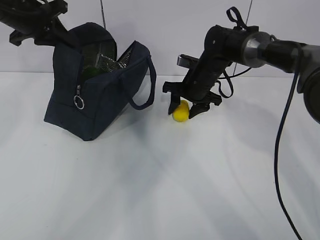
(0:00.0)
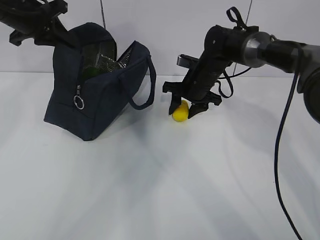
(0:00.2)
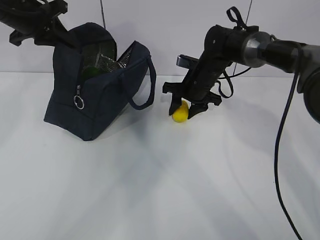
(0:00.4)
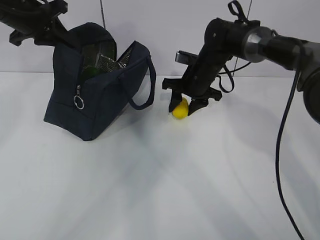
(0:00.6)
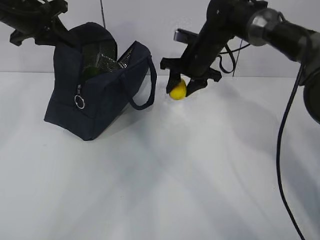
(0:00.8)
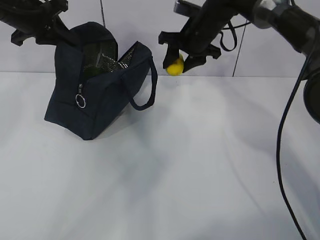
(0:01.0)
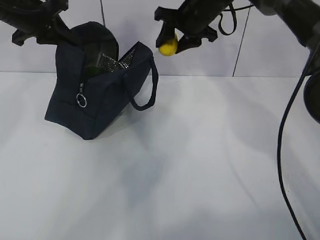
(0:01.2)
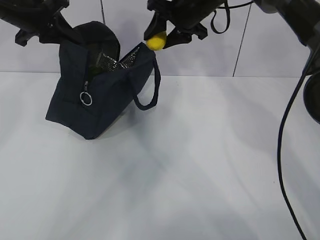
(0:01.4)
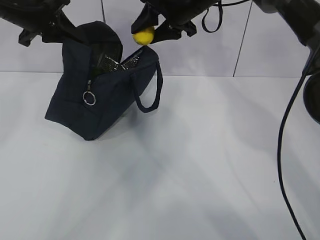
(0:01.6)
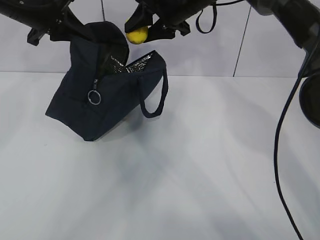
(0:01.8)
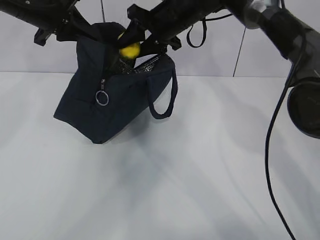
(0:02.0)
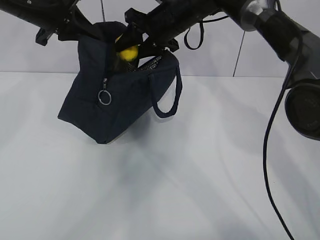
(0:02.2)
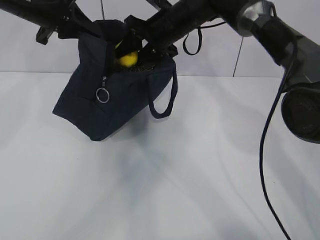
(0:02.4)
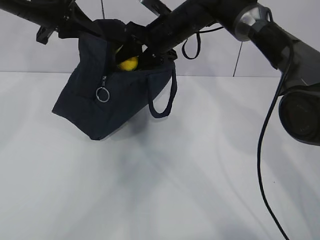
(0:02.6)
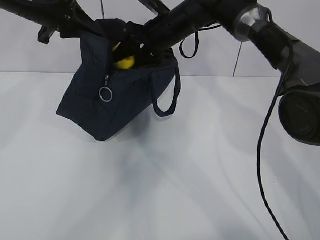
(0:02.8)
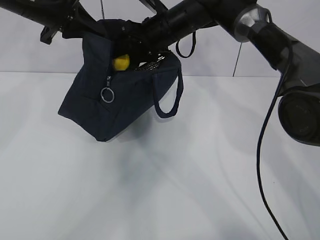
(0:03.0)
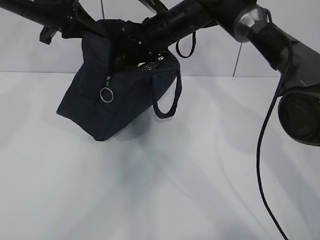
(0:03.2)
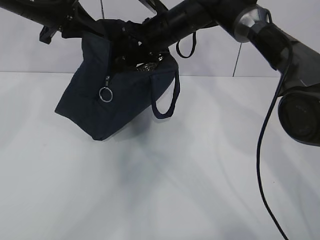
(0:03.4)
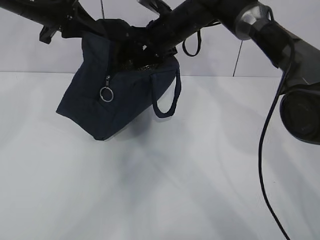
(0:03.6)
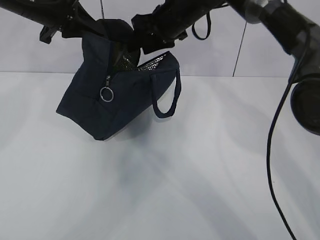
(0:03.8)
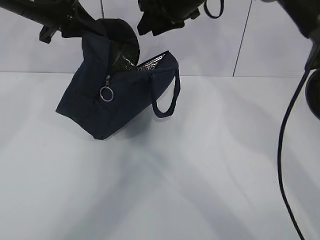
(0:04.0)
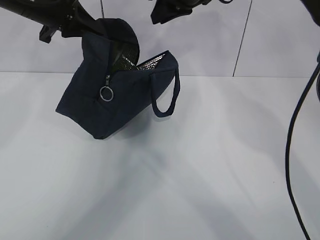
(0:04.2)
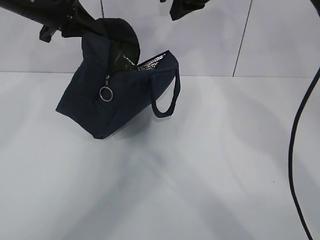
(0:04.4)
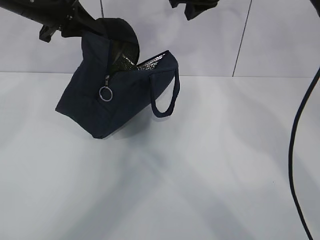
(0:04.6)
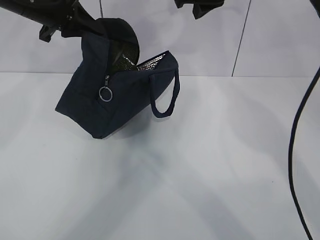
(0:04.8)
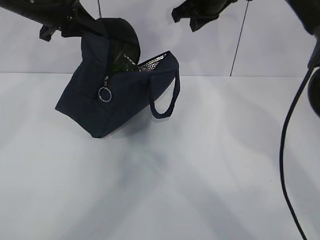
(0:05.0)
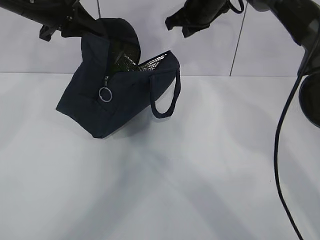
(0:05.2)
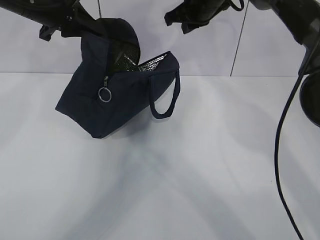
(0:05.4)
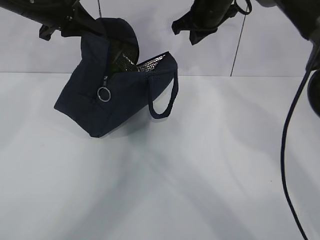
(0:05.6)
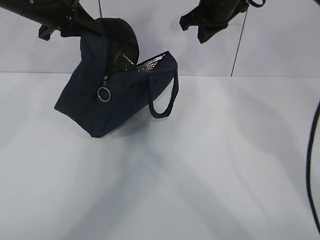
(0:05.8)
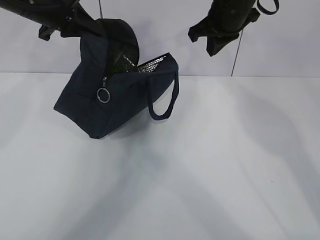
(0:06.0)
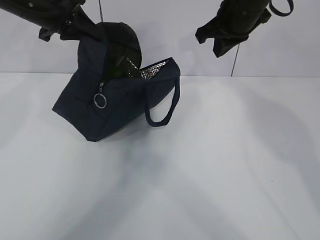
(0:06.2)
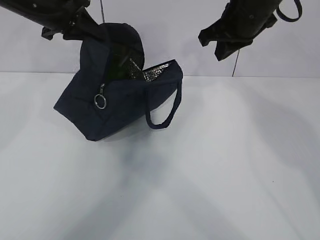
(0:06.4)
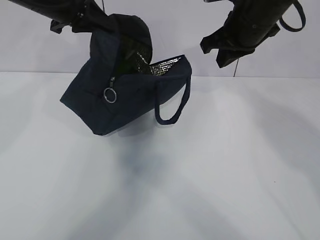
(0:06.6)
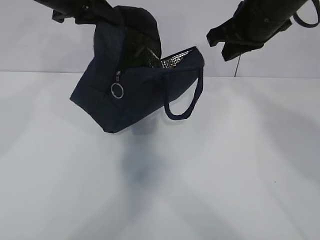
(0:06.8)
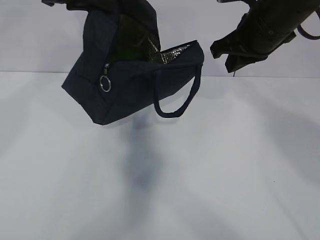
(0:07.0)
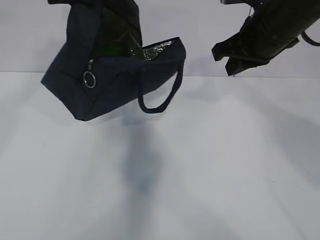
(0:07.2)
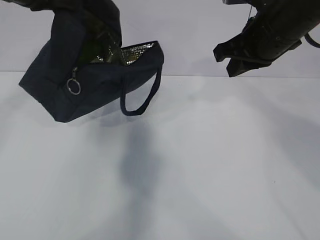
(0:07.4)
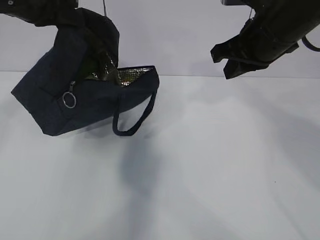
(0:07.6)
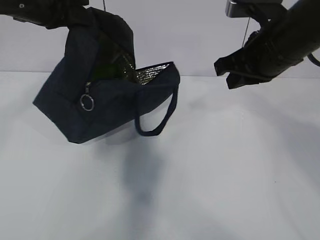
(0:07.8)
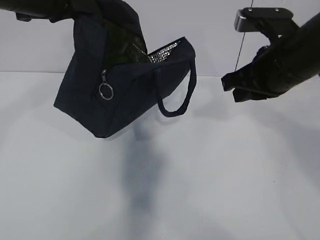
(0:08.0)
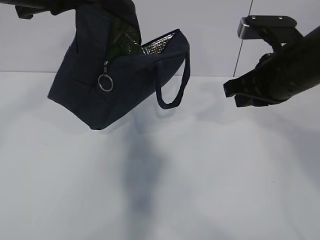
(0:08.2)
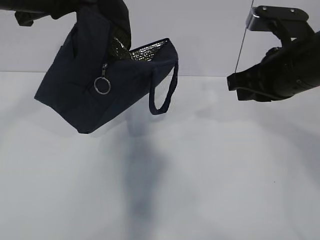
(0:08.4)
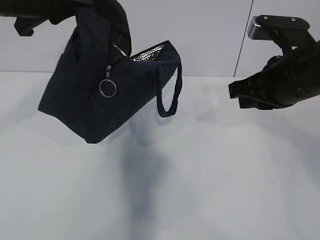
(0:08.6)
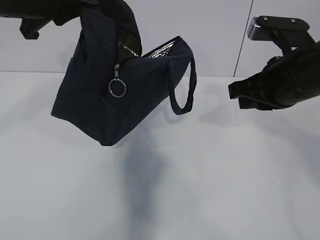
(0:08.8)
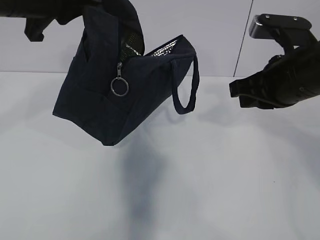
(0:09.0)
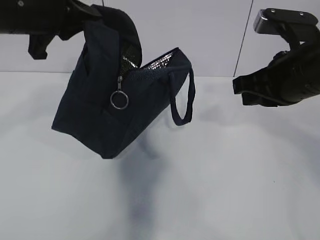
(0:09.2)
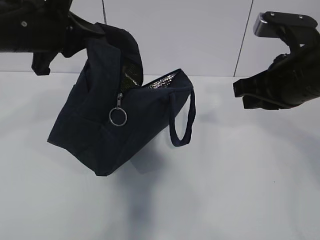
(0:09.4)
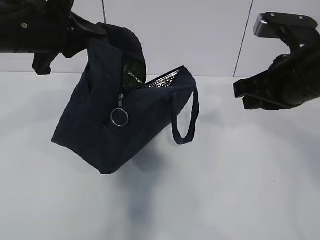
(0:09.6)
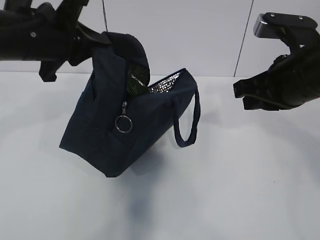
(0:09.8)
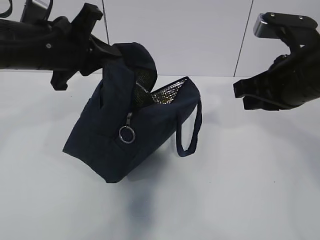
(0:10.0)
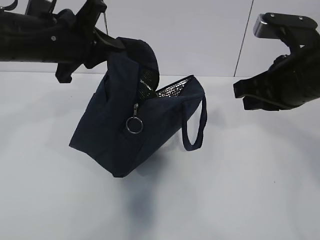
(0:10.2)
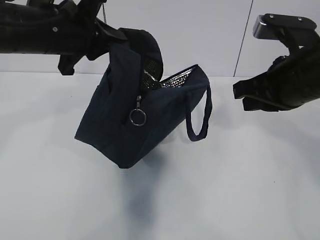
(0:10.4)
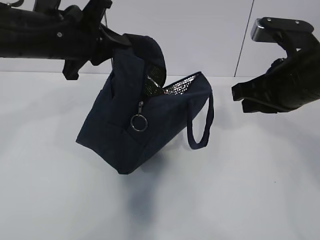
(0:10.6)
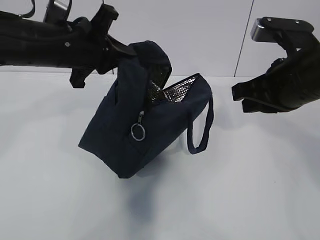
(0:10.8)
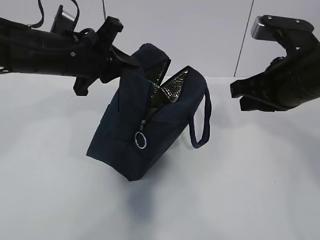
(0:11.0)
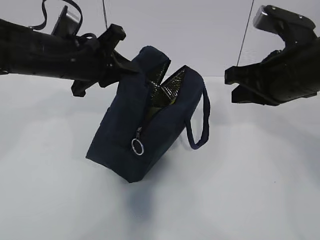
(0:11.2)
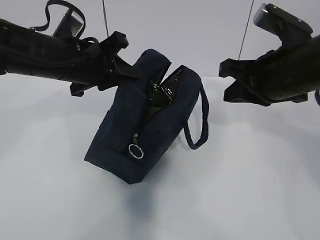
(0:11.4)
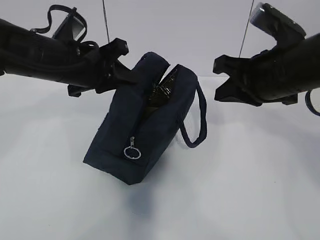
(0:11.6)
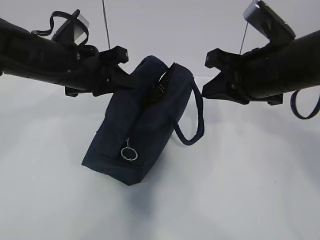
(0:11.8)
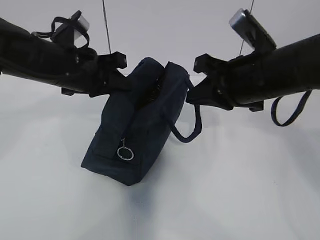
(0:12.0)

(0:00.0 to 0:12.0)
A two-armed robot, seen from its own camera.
Step, 0:00.0 - 0:05.8: Grab the lunch bag with your right hand.
Step, 0:06.2 - 0:09.4: Move the lunch bag to the right.
0:00.0 - 0:01.6: The right gripper moves upward, about 15 cm.
0:01.6 - 0:03.0: The right gripper shifts by roughly 5 cm.
0:03.0 - 0:04.4: The right gripper is displaced upward and to the right by approximately 10 cm, and closes.
0:04.4 - 0:06.0: The right gripper moves roughly 5 cm.
0:06.0 - 0:07.6: The grippers both shift backward by approximately 10 cm.
0:07.6 - 0:09.0: The left gripper changes place by approximately 5 cm. The right gripper heads backward, covering about 5 cm.
0:09.0 - 0:10.4: The left gripper travels downward by approximately 5 cm.
0:10.4 - 0:12.0: The left gripper heads downward, covering about 5 cm.

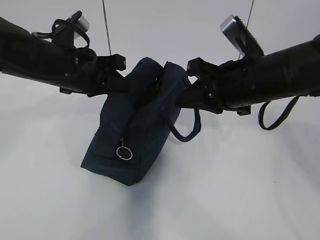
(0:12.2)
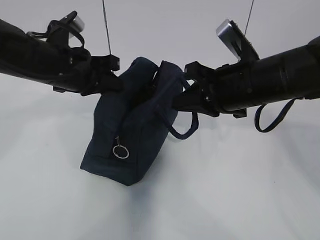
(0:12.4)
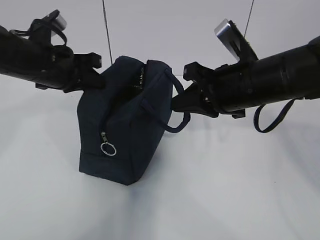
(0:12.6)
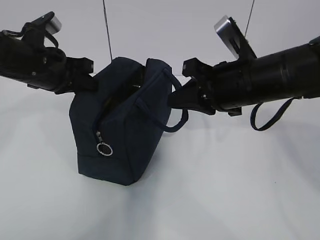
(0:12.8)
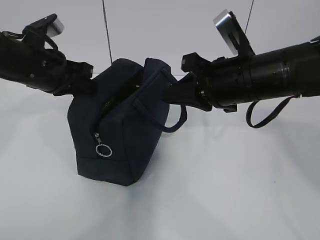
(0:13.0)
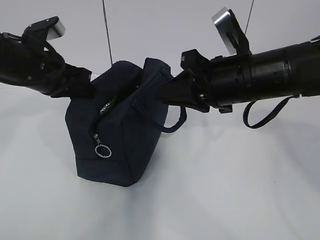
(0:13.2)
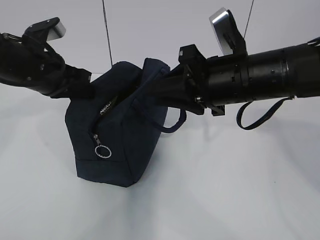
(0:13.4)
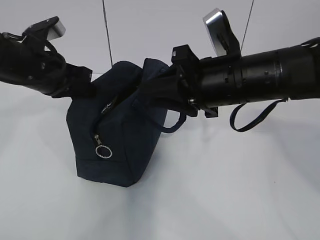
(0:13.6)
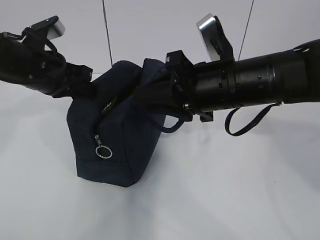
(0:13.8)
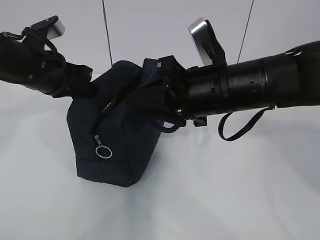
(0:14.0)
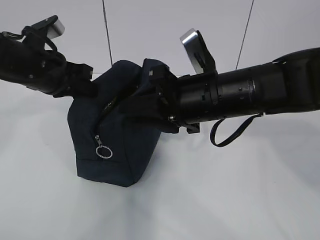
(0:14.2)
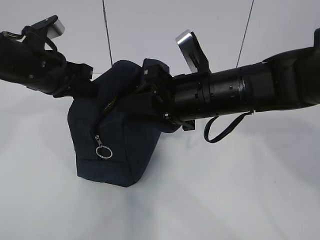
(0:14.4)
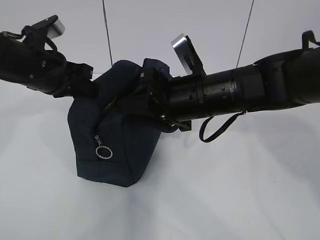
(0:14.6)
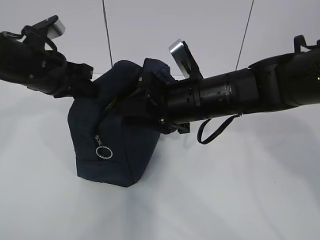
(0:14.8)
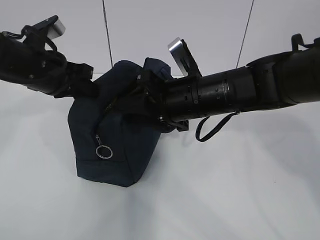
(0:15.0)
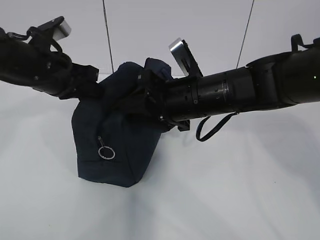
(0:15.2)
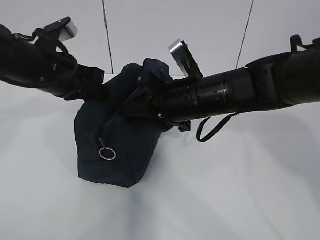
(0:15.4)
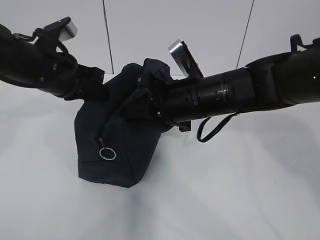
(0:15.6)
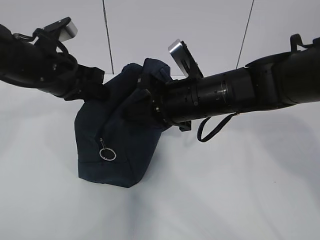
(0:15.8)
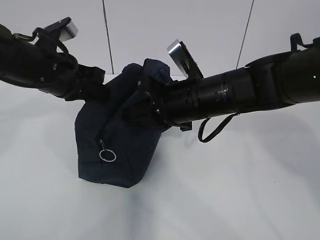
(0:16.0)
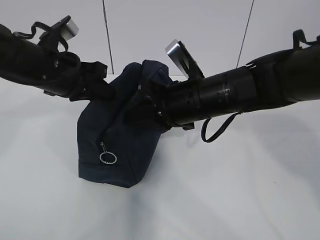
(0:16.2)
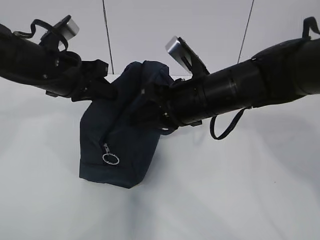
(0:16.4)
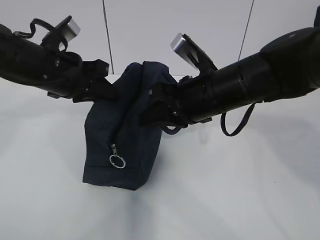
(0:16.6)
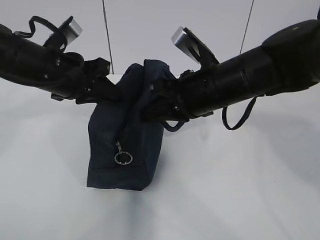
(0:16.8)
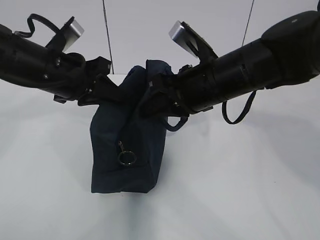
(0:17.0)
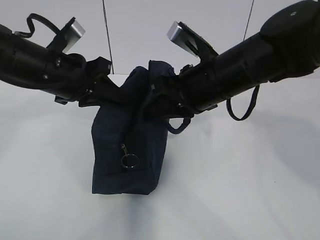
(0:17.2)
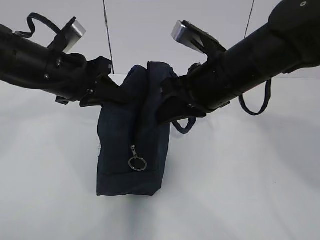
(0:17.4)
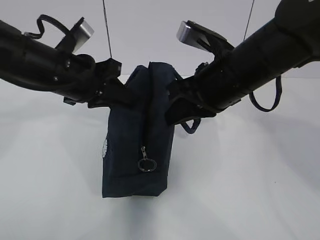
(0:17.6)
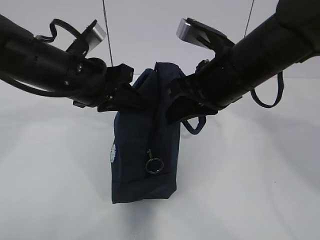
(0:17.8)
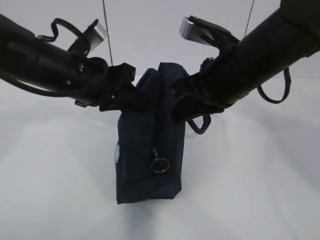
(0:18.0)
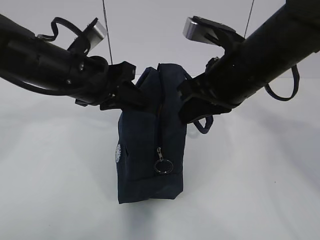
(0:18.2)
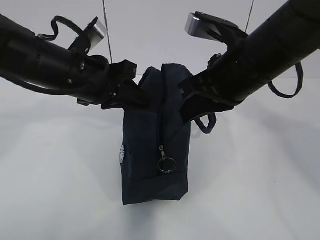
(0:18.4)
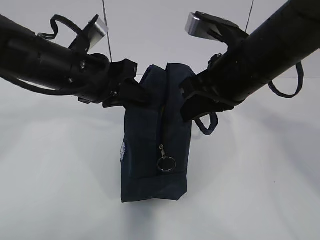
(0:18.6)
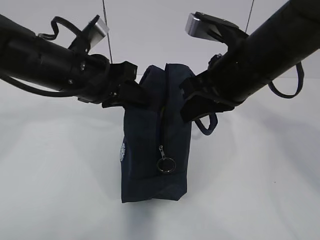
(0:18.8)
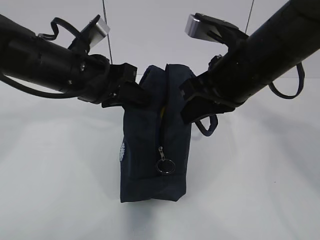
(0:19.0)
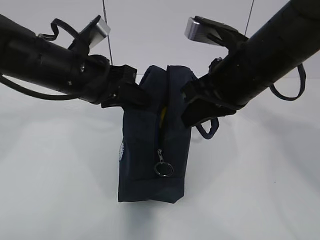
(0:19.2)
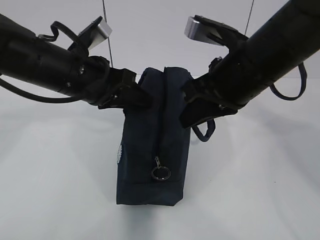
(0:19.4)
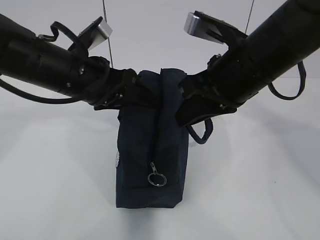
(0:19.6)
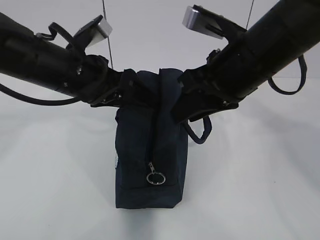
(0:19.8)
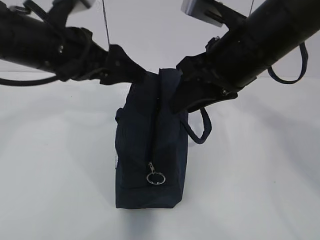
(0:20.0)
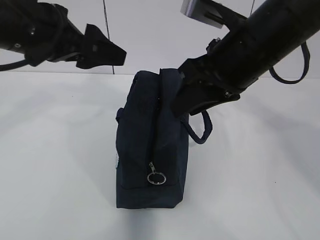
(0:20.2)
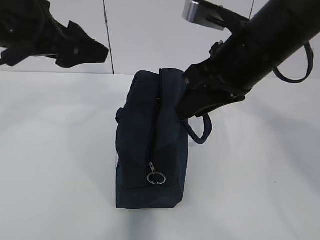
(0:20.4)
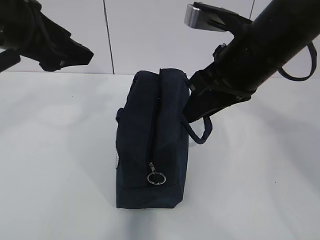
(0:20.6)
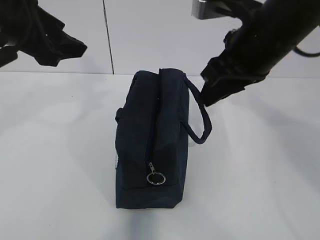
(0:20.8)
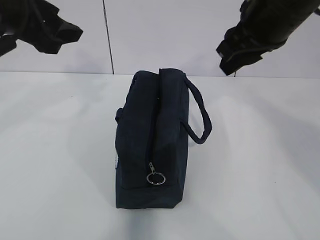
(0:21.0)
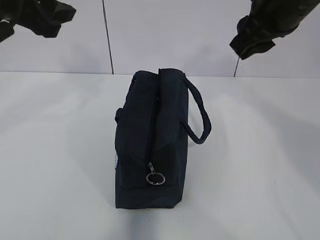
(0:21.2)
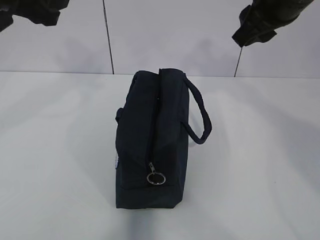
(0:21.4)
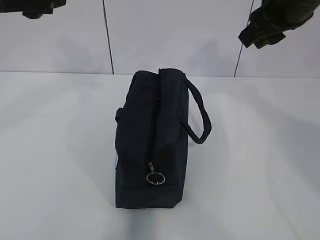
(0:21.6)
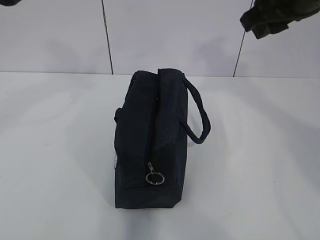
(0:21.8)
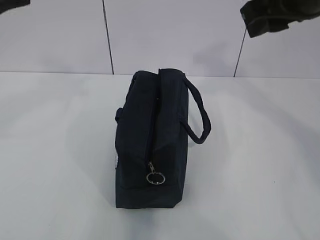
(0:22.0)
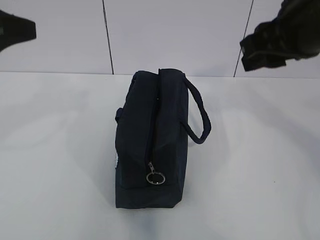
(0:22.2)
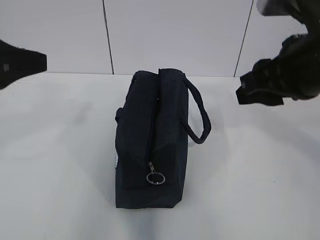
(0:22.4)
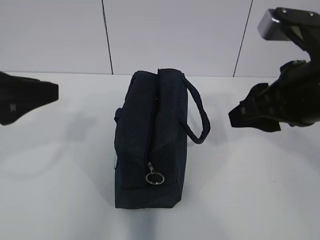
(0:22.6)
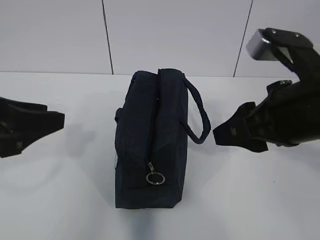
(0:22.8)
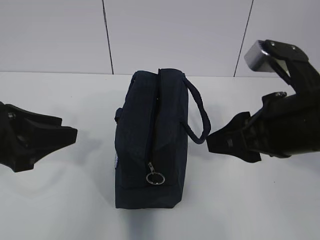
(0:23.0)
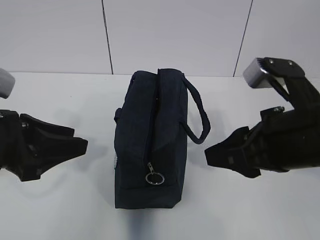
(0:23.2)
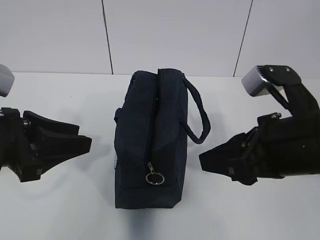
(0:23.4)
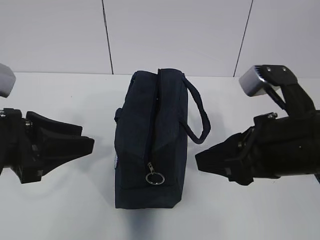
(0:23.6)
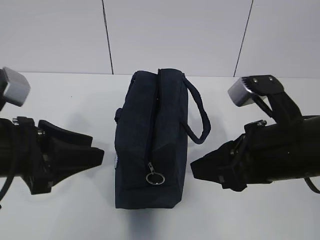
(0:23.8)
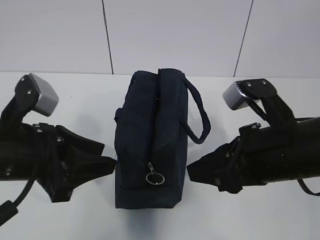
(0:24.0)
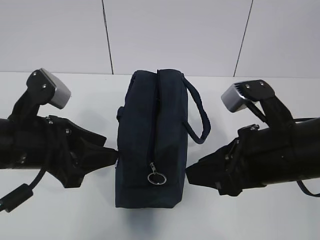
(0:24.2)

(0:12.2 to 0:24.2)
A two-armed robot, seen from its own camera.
0:12.2 - 0:13.8: The right gripper opens its fingers; the left gripper shifts approximately 5 cm to the left.
0:13.8 - 0:15.2: The right gripper ends up approximately 5 cm from where it was.
0:15.2 - 0:16.6: The right gripper closes up.
0:16.6 - 0:18.2: The right gripper shifts by about 5 cm.
0:18.2 - 0:19.8: The right gripper opens its fingers. The left gripper opens its fingers.
0:19.8 - 0:21.2: The left gripper shifts about 15 cm upward and to the left, while the right gripper travels upward by roughly 5 cm.
0:21.2 - 0:22.6: Both grippers move backward and downward, roughly 10 cm.
0:22.6 - 0:24.2: The left gripper travels downward and to the right by about 10 cm, while the right gripper moves downward, roughly 5 cm.
